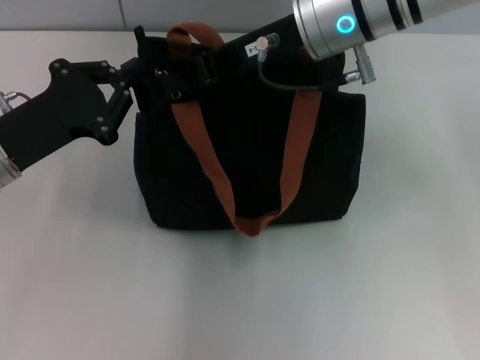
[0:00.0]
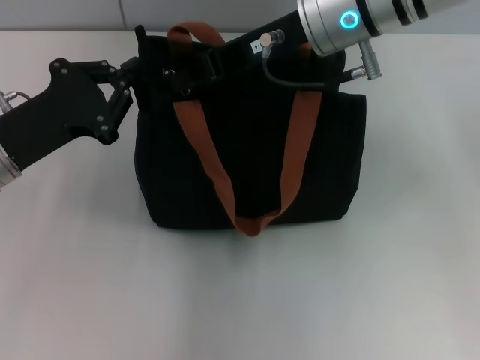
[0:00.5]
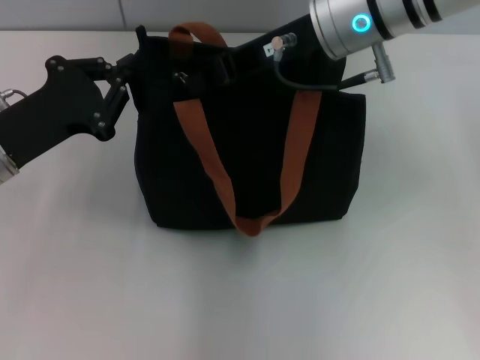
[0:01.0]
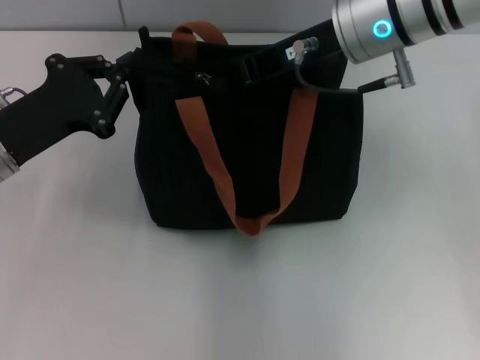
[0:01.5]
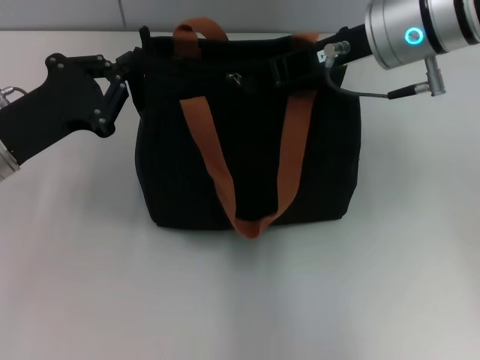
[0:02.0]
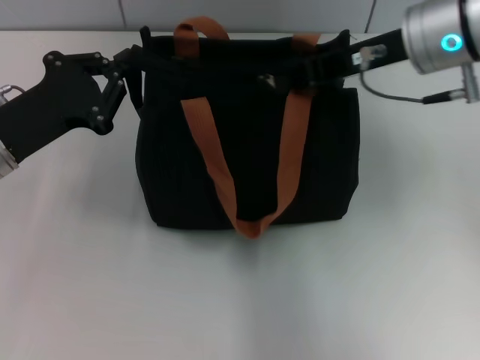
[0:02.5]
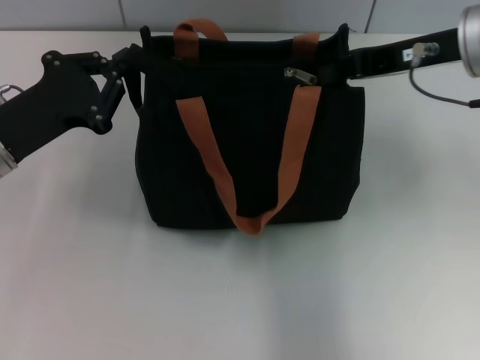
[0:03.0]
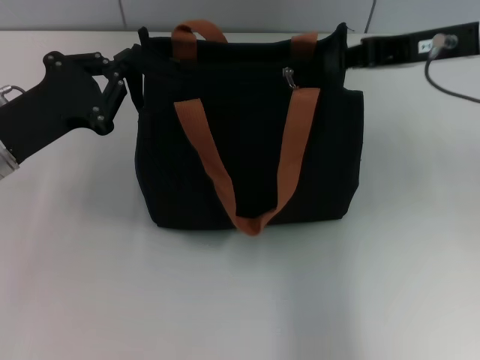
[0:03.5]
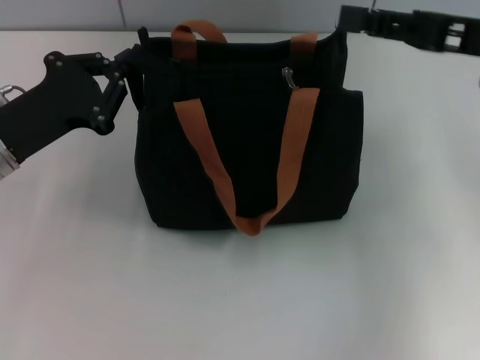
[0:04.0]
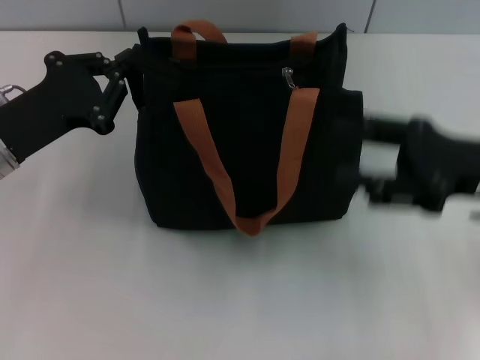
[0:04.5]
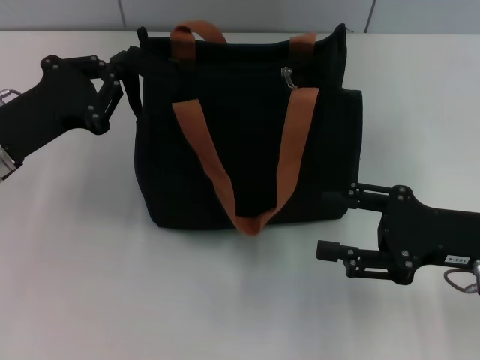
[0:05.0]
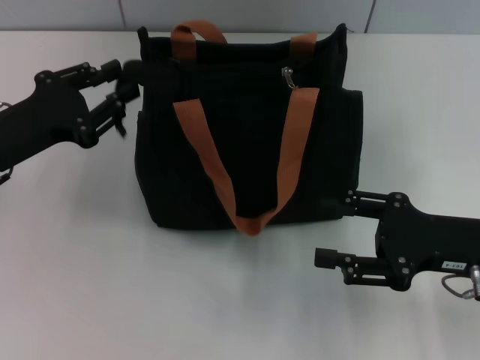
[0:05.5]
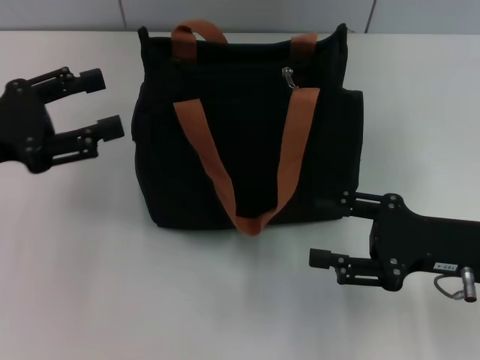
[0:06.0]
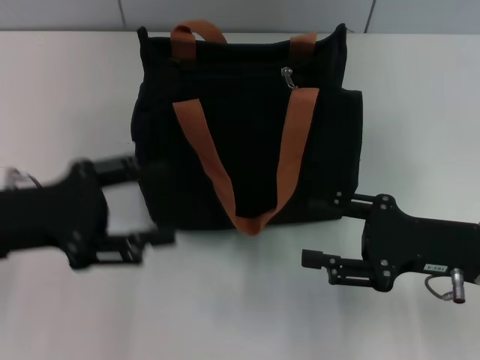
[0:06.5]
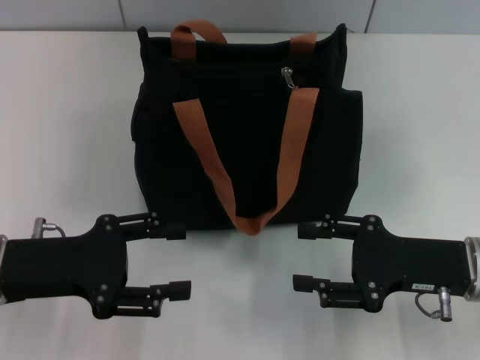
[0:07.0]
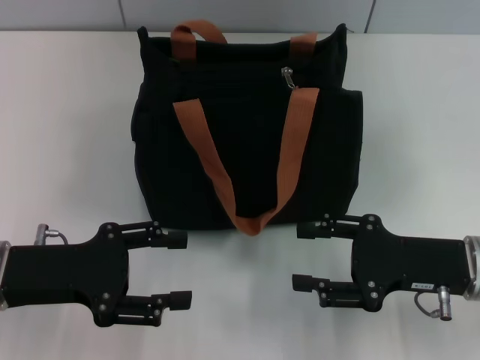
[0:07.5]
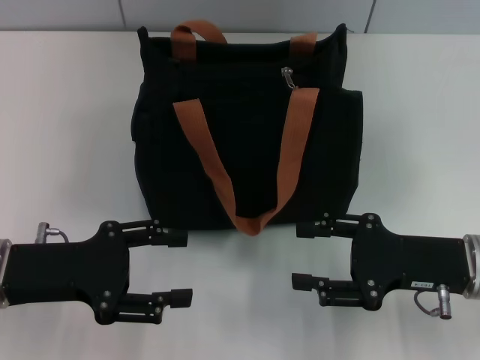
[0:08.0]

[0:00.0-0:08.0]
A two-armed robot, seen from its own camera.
Step, 0:00.0 to 0:02.5: Pull up the zipper with your right hand.
0:00.0 to 0:02.0: The right gripper goes about 5 cm to the right.
0:02.0 to 0:04.0: The right gripper shifts roughly 15 cm to the right and backward.
0:04.0 to 0:06.0: The left gripper shifts by roughly 5 cm, and opens up; the right gripper travels downward and backward by approximately 15 cm, and opens its fingers.
0:06.0 to 0:08.0: The left gripper goes about 5 cm downward.

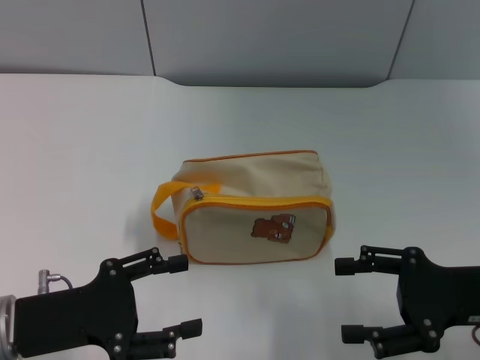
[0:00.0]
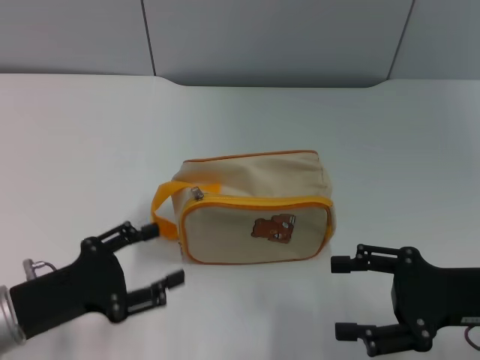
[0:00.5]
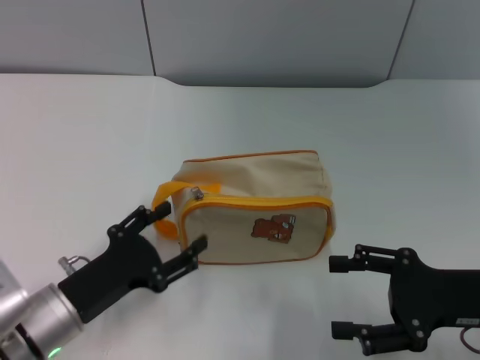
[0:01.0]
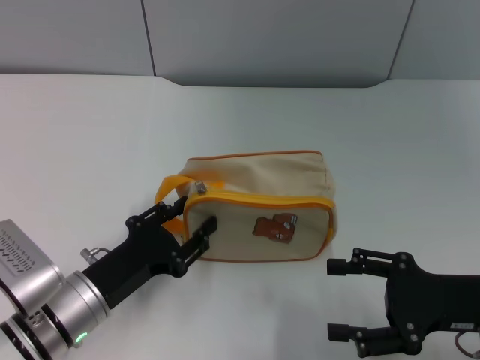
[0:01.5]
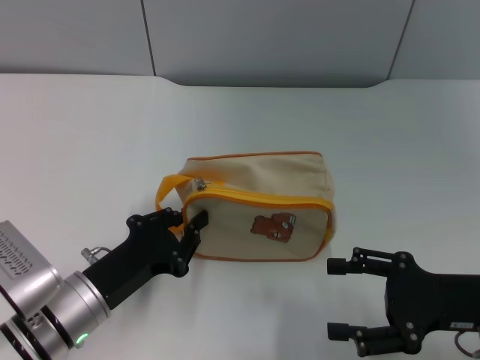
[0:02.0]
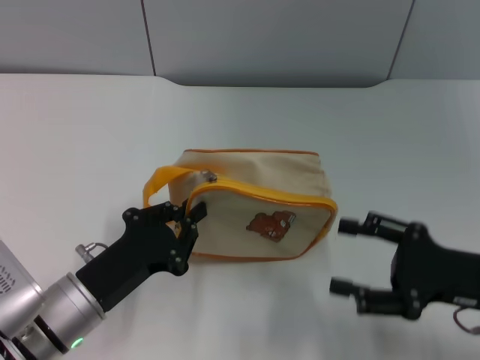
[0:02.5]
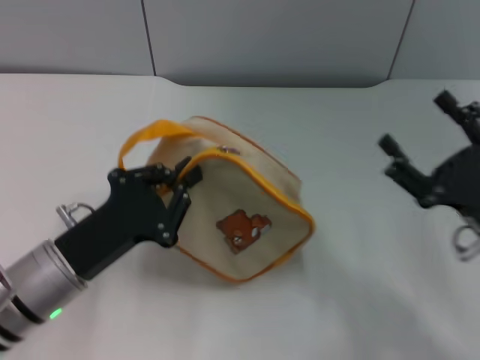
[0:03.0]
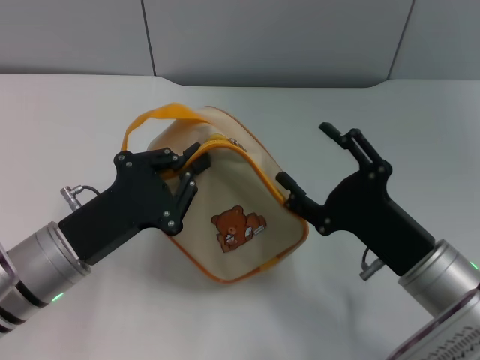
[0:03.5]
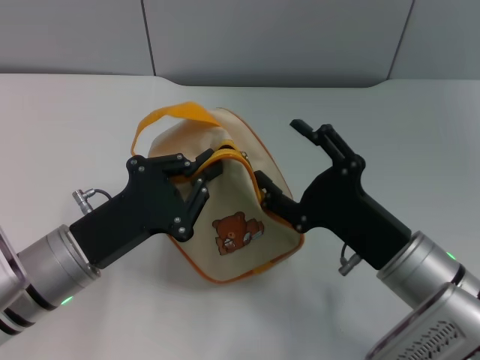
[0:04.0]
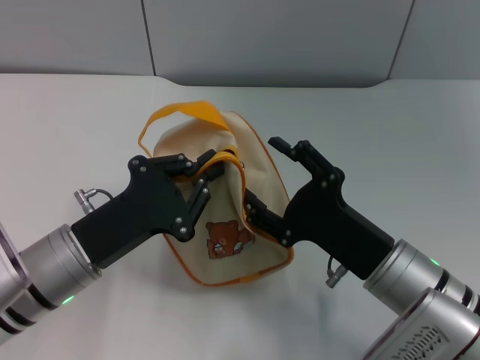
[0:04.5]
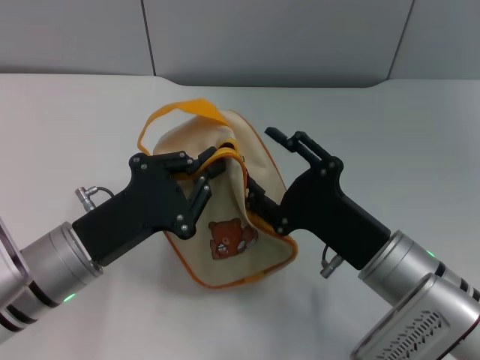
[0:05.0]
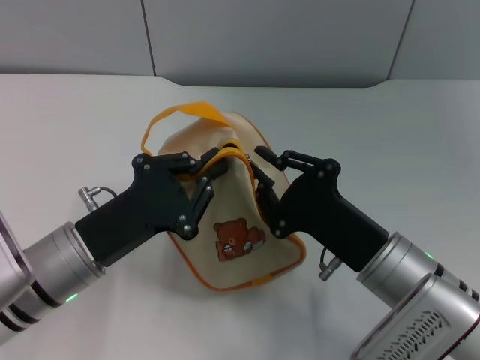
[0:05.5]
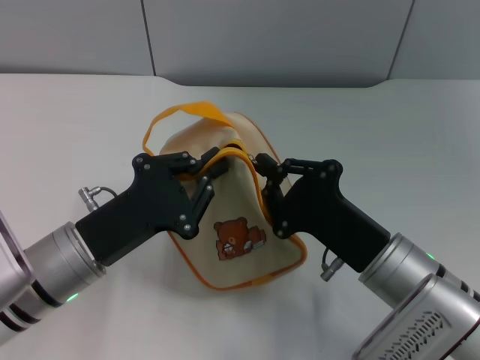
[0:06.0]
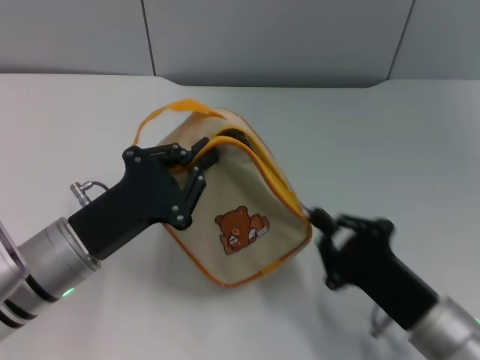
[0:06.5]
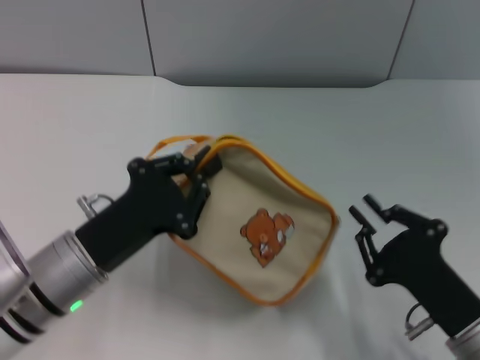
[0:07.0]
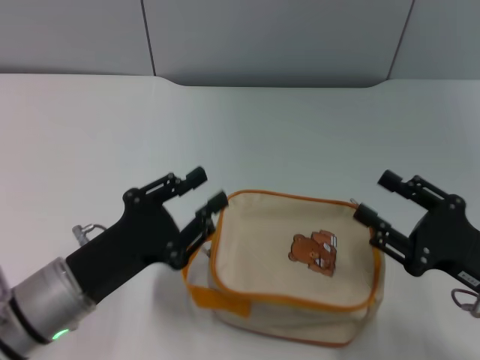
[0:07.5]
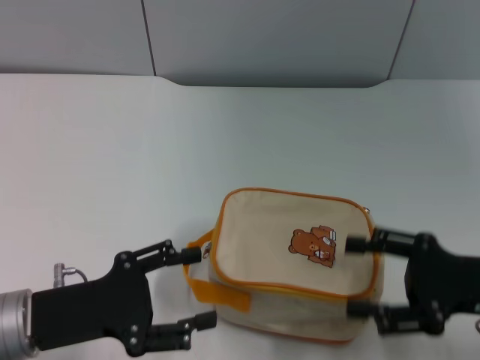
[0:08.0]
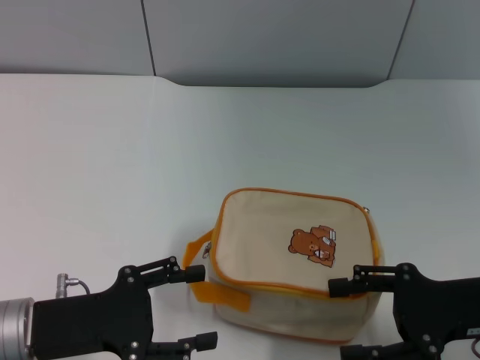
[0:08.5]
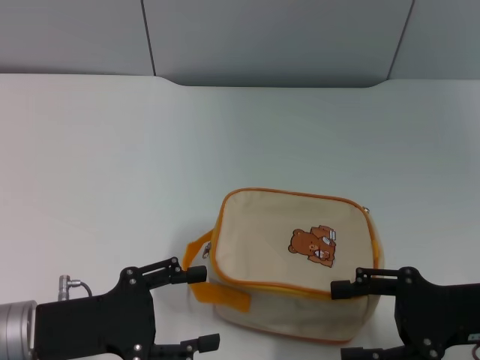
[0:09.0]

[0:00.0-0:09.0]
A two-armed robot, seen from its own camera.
Step, 0:00.0 to 0:02.5: Pick up the bag with left gripper.
Step, 0:03.0 to 0:06.5: Unzip the zipper of bag with right gripper.
0:00.0 to 0:02.0: The left gripper shifts approximately 10 cm to the right and downward, and closes up.
0:02.0 to 0:04.5: The right gripper goes about 10 cm to the left, while the left gripper travels upward by approximately 5 cm.
0:04.5 to 0:07.0: The right gripper moves to the right and backward, some 10 cm, and closes its fingers.
0:07.0 to 0:09.0: The left gripper goes about 5 cm to the left, and opens its fingers, while the right gripper moves upward, forward and to the right, roughly 10 cm, and opens its fingers.
